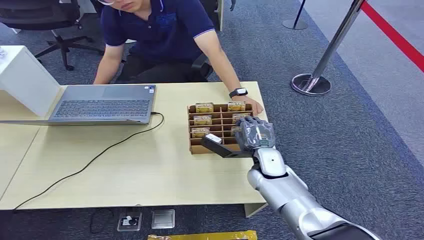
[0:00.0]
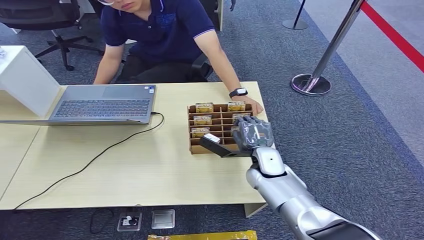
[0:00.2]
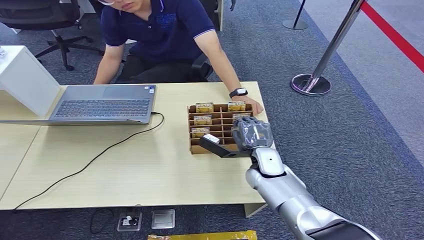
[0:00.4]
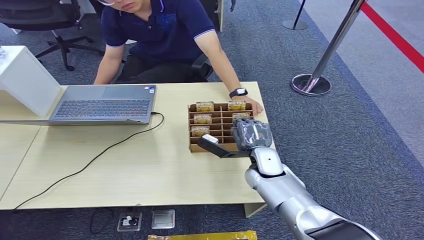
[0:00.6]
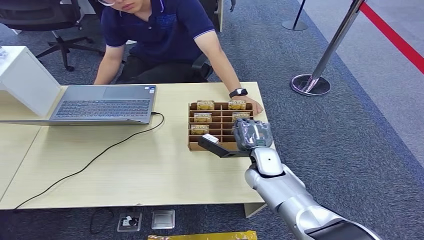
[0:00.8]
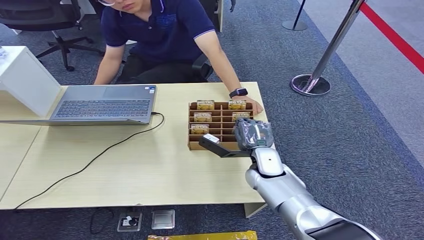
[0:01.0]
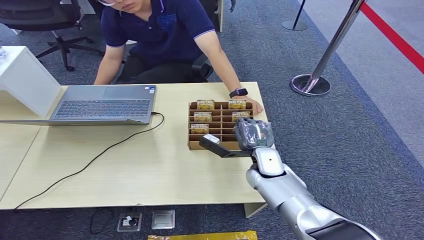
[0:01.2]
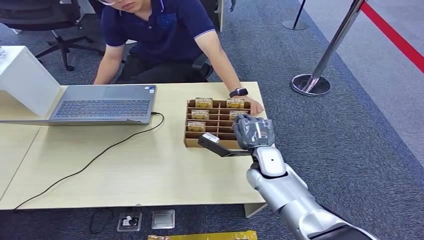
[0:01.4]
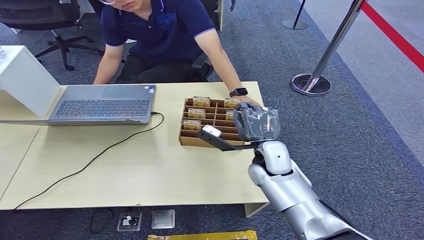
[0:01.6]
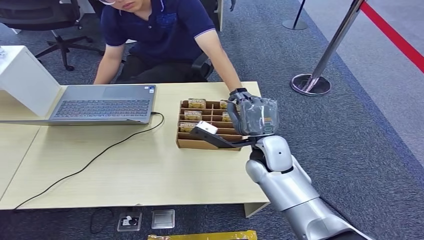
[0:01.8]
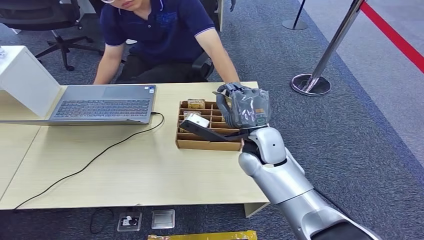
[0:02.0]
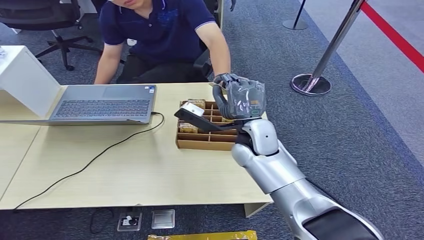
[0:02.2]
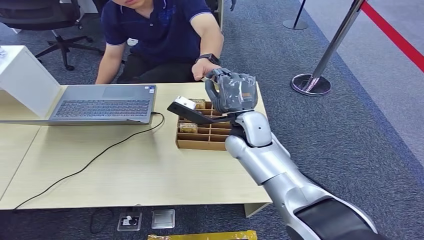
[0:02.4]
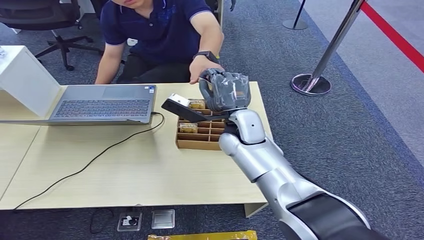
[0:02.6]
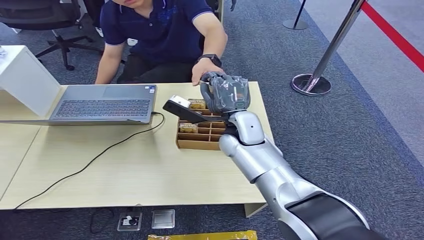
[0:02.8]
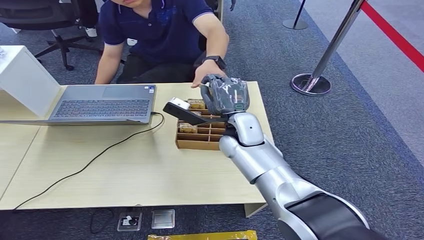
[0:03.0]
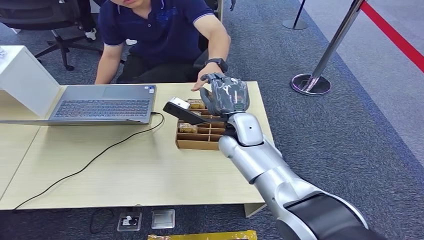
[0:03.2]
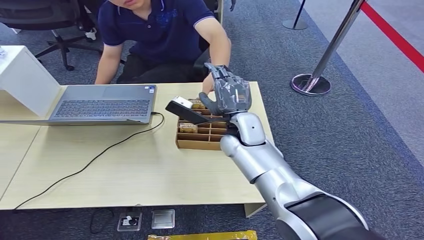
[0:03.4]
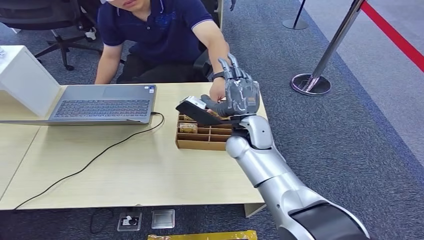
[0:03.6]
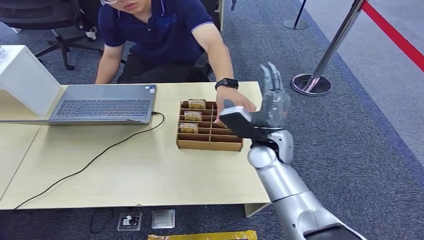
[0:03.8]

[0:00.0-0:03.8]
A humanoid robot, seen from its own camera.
Step, 0:00.0 to 0:01.4: Pick up the room card from the card holder.
Step, 0:01.8 to 0:03.8: Hand the room card to the target.
0:01.2 to 0:02.6: The right hand goes some 10 cm upward, to the left and forward.
0:02.6 to 0:03.8: The right hand heads to the right, covering approximately 5 cm.
